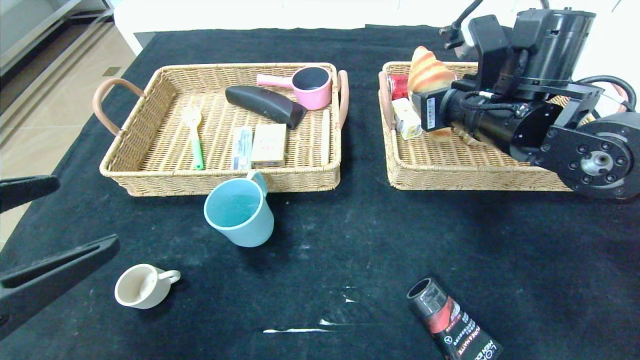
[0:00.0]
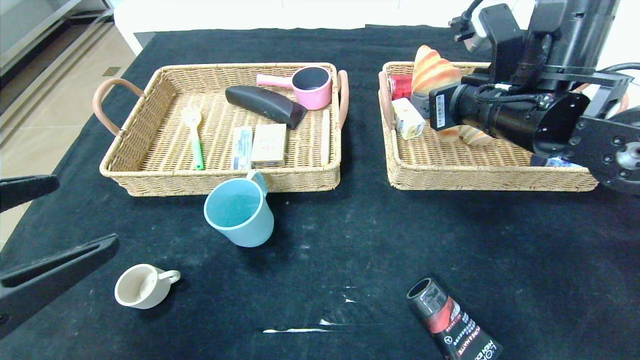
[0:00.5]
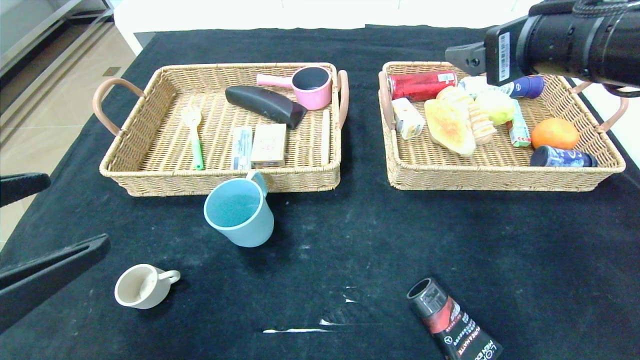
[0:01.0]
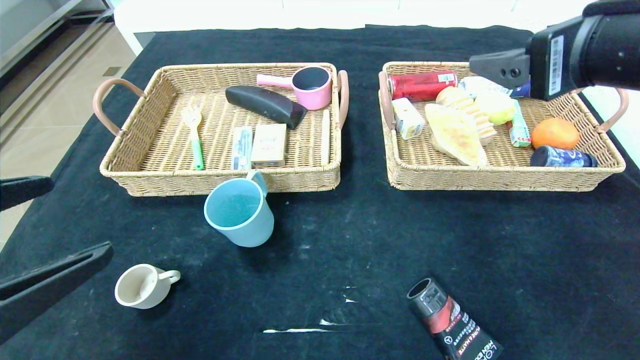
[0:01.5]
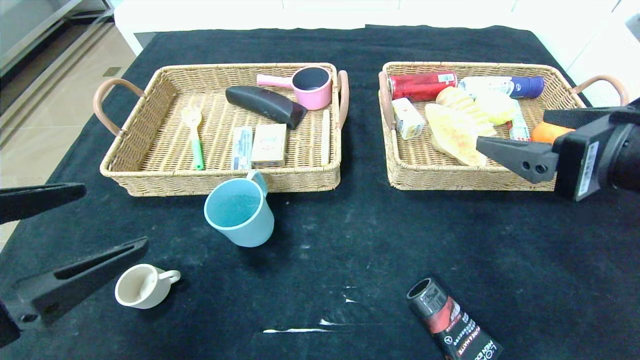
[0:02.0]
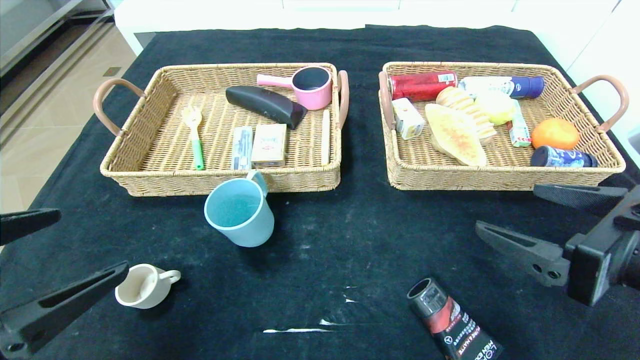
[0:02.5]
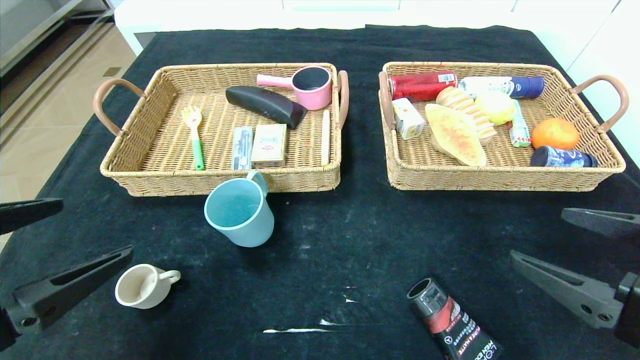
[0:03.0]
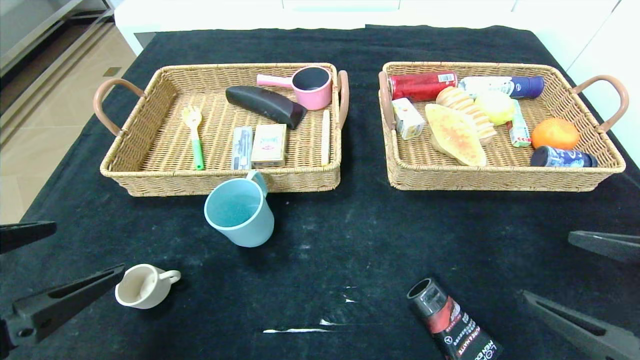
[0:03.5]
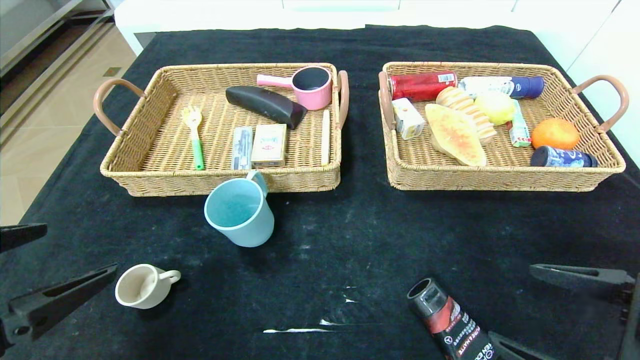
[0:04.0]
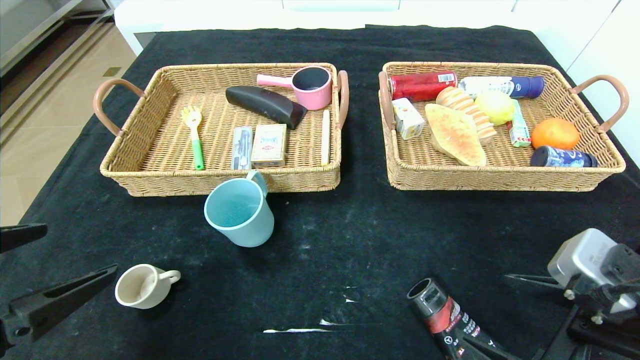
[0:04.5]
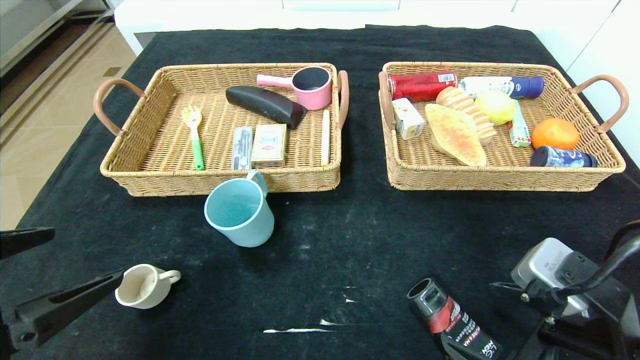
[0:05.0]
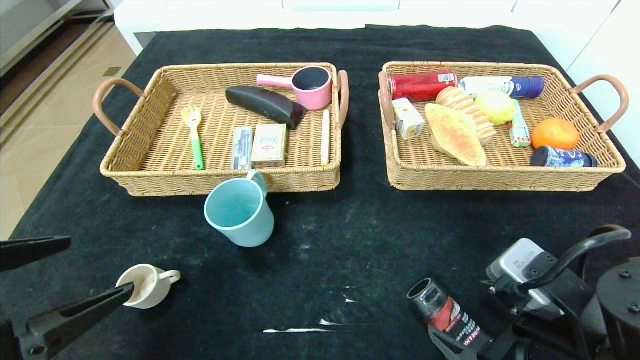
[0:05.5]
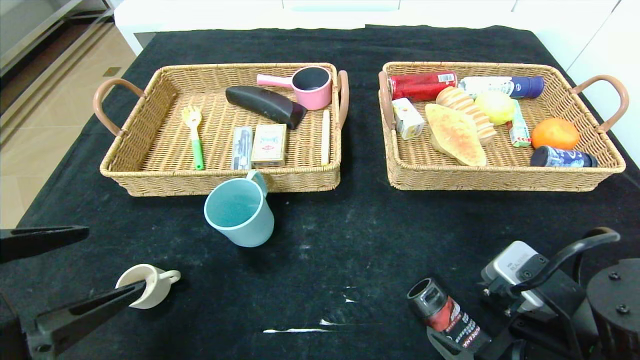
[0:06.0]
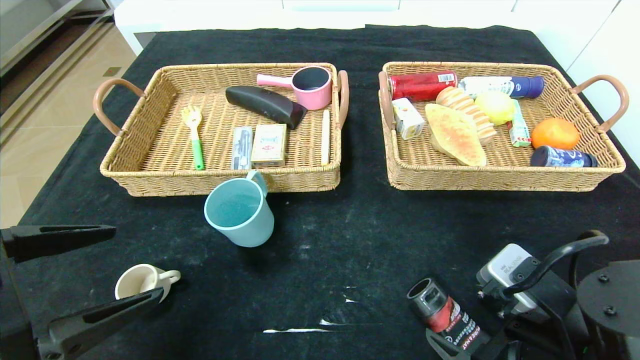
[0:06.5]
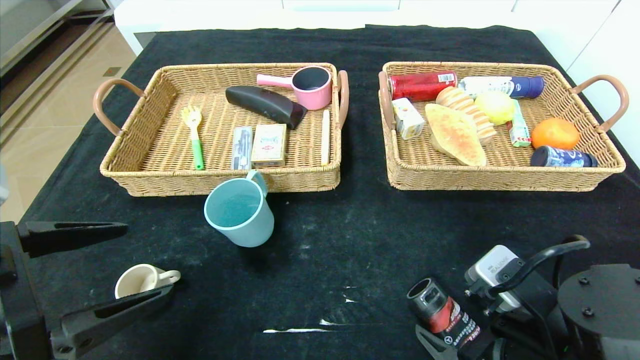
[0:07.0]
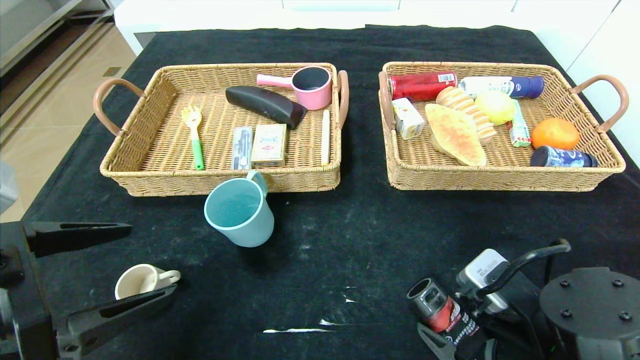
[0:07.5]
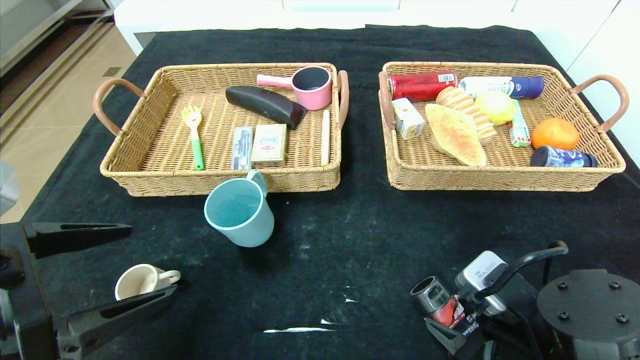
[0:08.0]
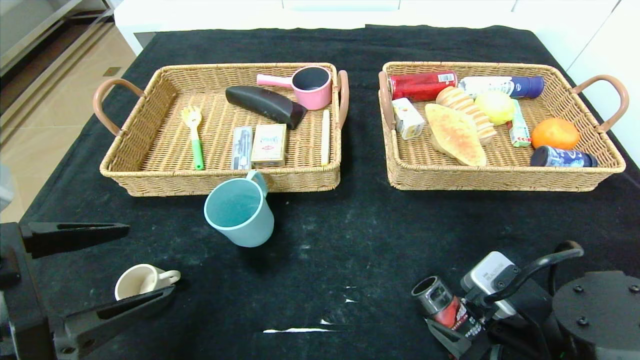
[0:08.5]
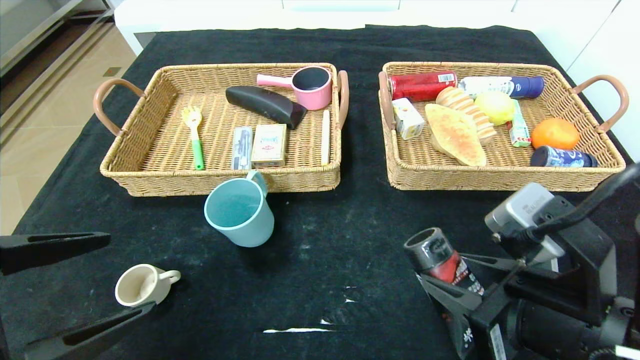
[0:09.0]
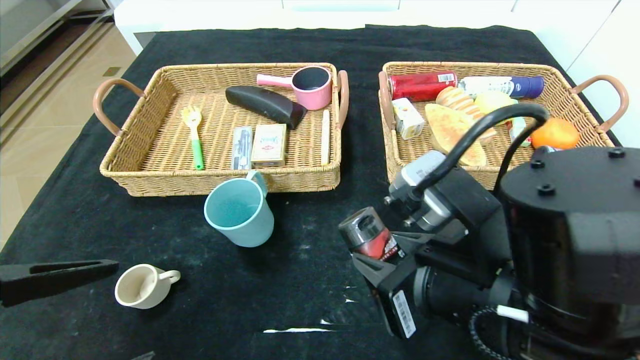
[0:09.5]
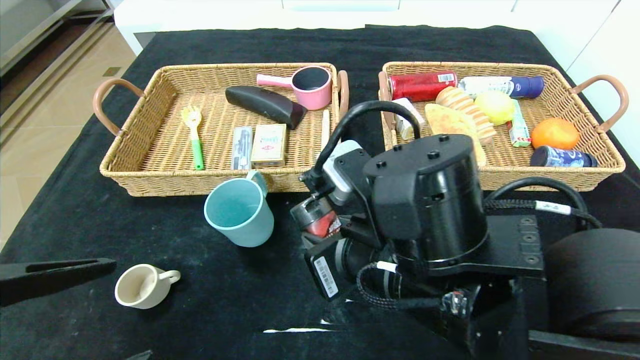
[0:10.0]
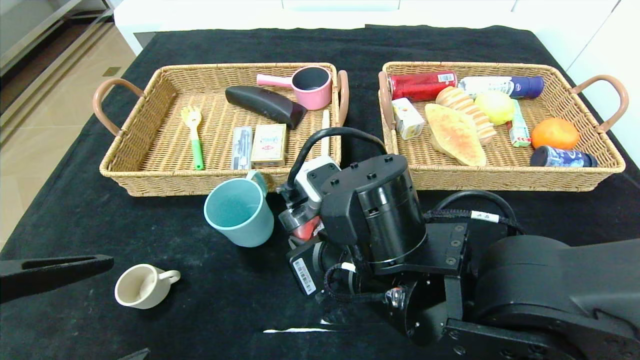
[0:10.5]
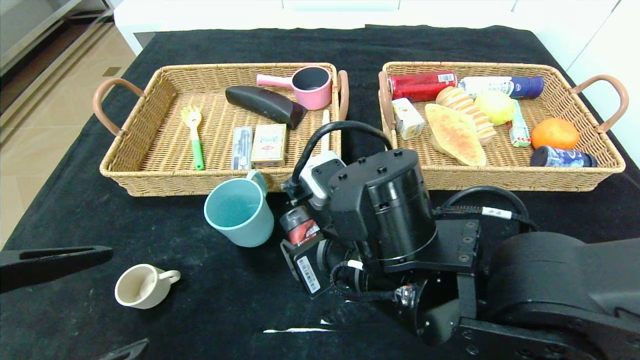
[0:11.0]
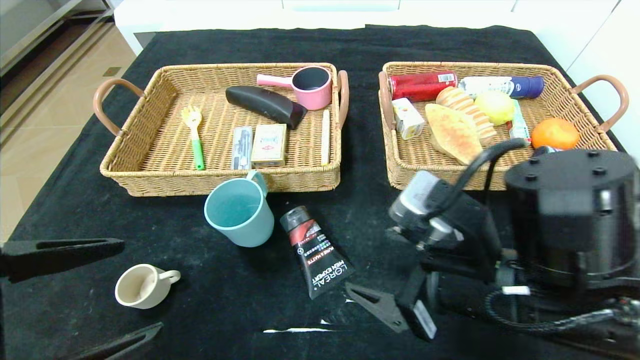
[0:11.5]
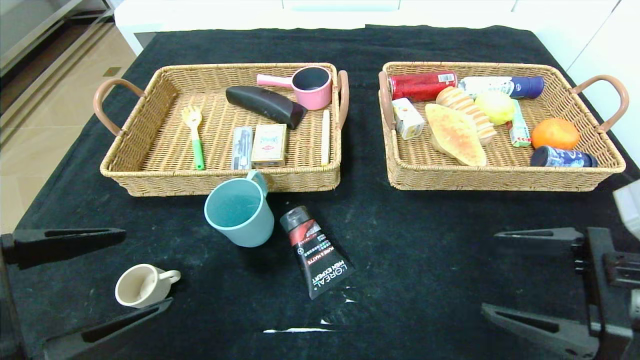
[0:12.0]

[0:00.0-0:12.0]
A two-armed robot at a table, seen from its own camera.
Step, 0:01.5 to 0:10.5: Place the soft cleanser in the center of the table.
0:00.0 to 0:02.0: The right gripper heads backward, covering roughly 15 cm, and opens.
0:02.0 to 0:04.0: The right gripper heads downward and backward, covering approximately 10 cm.
0:04.0 to 0:06.0: The right gripper shifts by about 10 cm.
0:06.0 to 0:08.0: The right gripper closes.
0:08.0 to 0:10.0: The right gripper heads to the left and upward, covering roughly 15 cm.
0:10.0 to 0:12.0: The right gripper travels to the right by about 25 cm, and opens up.

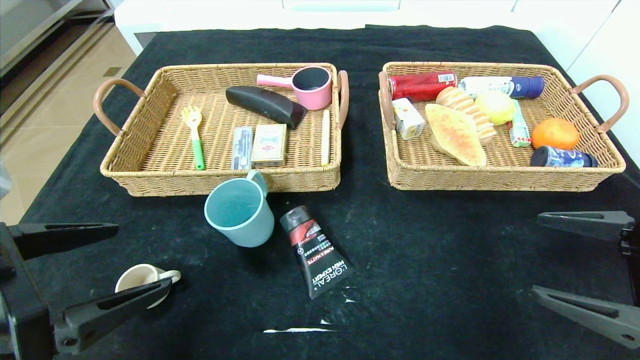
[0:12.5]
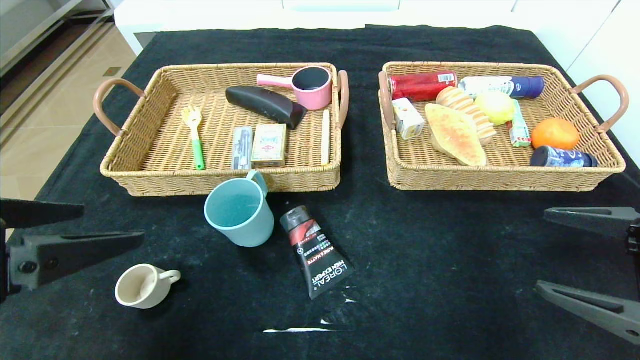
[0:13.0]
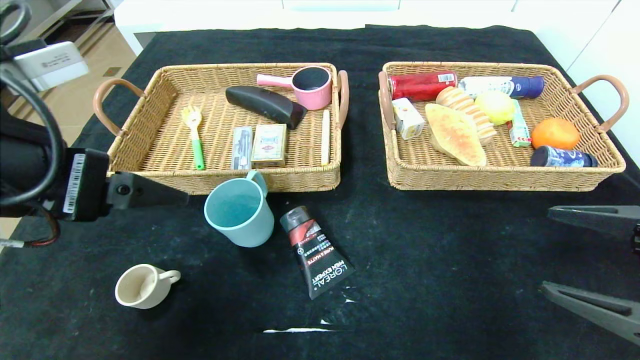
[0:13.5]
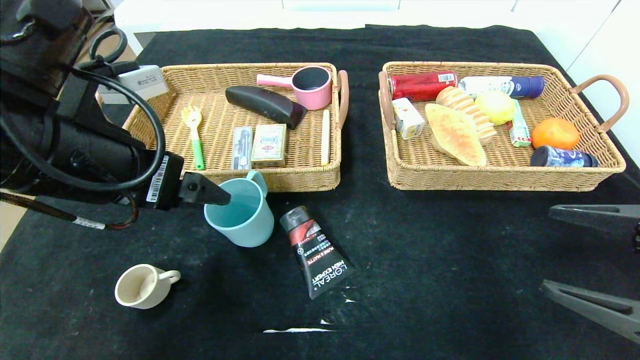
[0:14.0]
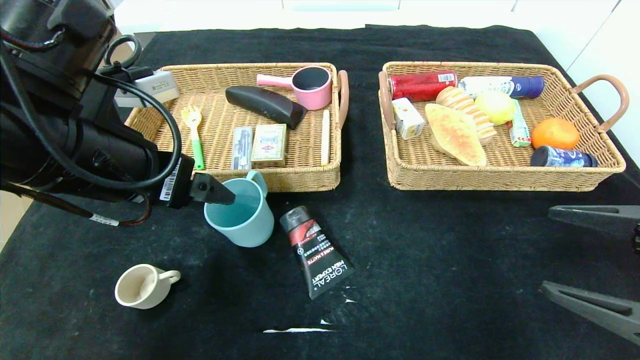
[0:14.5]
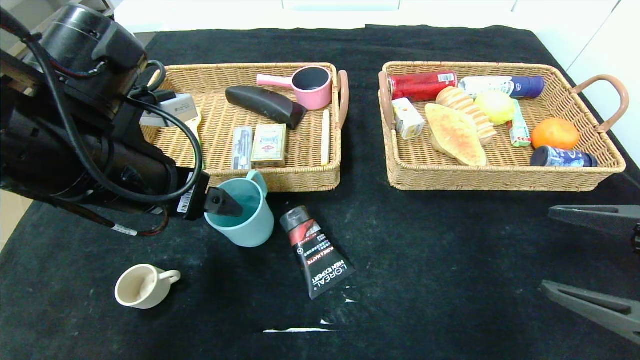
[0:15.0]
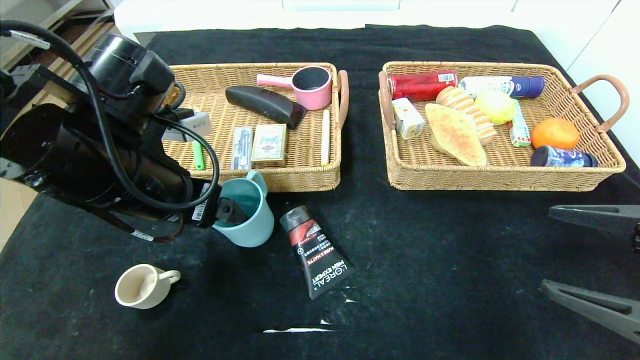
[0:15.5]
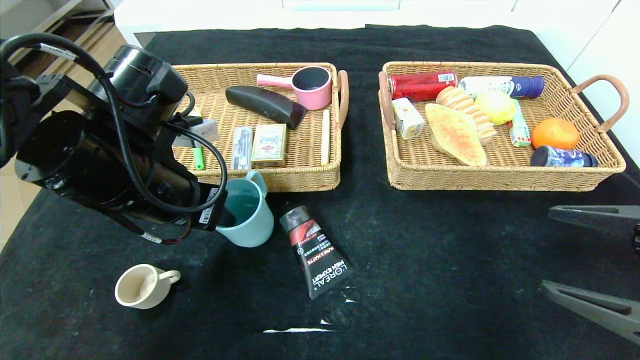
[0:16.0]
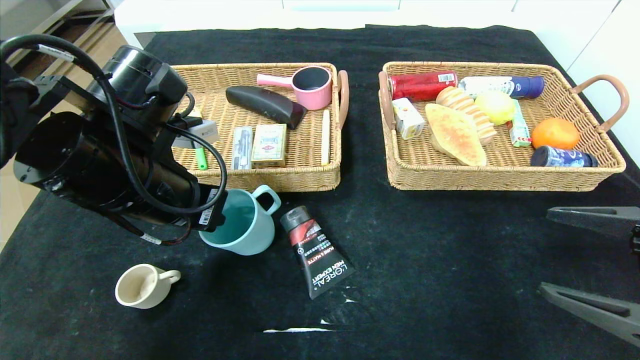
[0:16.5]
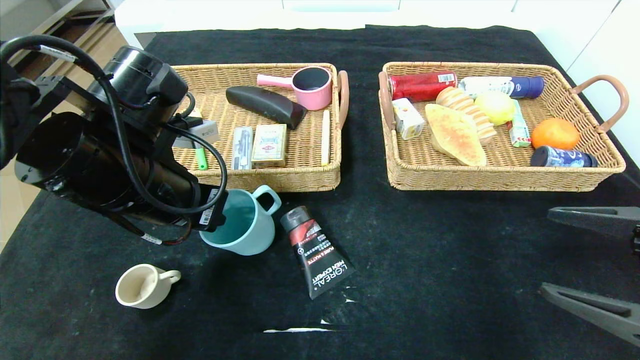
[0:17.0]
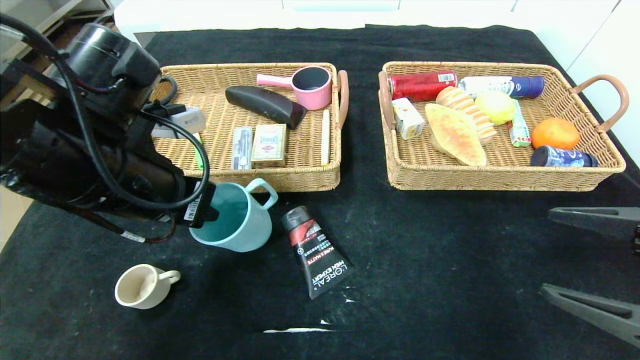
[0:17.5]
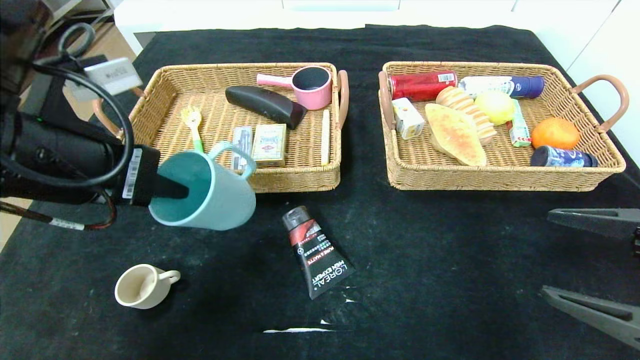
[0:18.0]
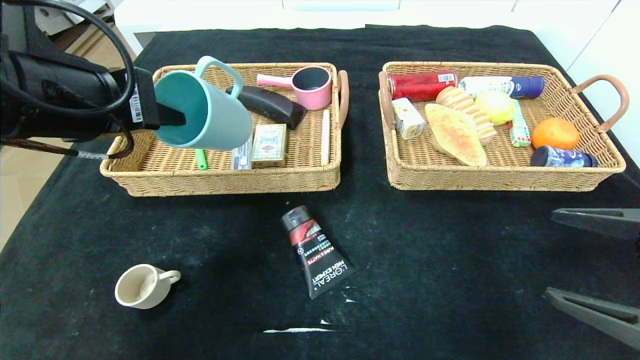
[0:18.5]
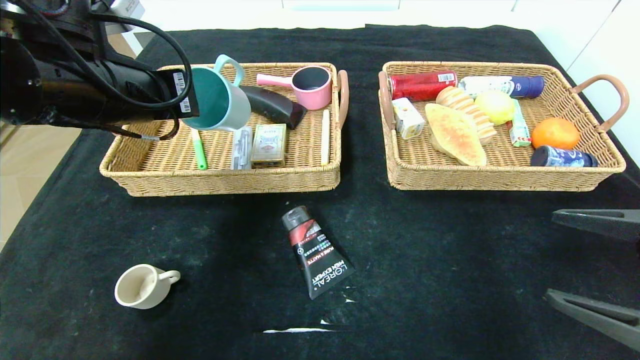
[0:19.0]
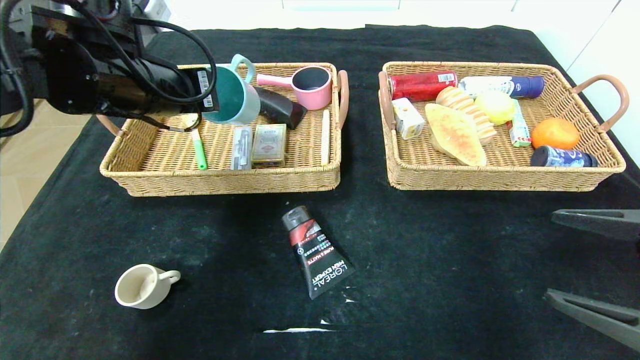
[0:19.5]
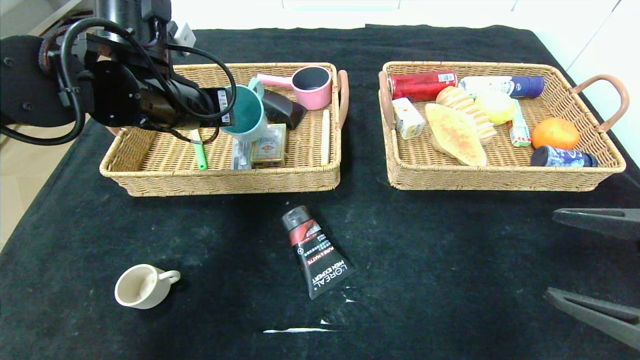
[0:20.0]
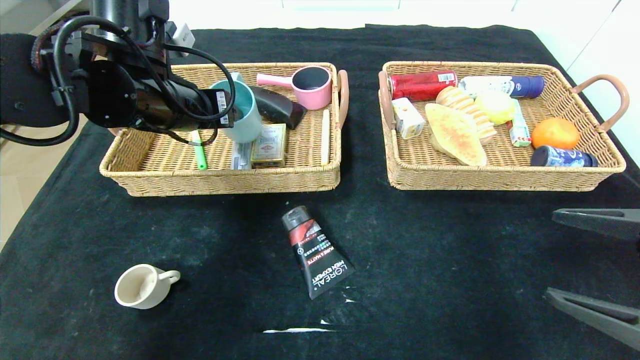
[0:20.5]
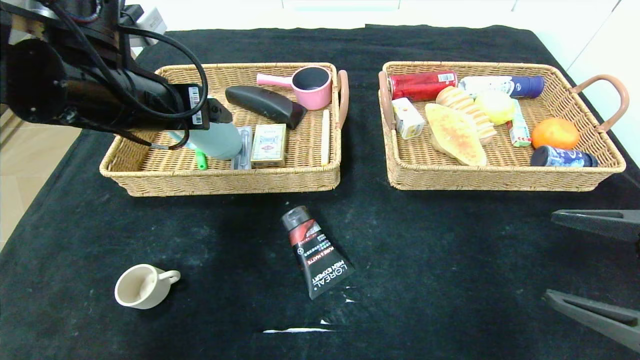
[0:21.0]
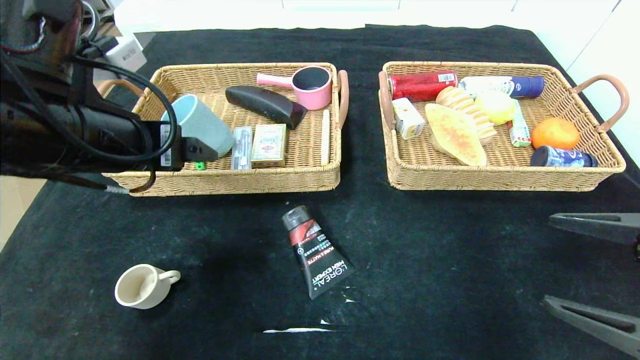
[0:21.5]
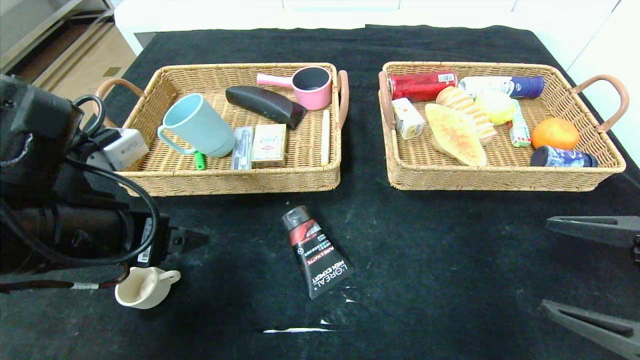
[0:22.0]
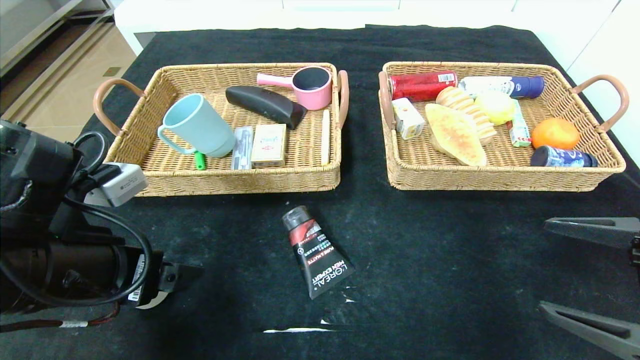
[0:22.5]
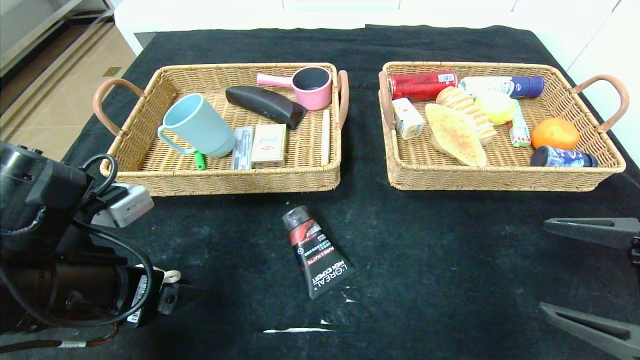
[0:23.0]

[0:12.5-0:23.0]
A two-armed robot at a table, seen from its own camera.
Step, 0:12.5 to 0:20.5: Grasp the blue cup and put it in the left basket.
0:12.5 to 0:14.5: The left gripper shifts roughly 15 cm forward, upward and to the right.
0:14.5 to 0:16.5: The left gripper ends up about 5 cm from where it was, and closes up.
0:16.5 to 0:19.0: The left gripper goes roughly 5 cm upward.
0:19.0 to 0:21.0: The left gripper opens up.
0:21.0 to 0:23.0: The left gripper goes roughly 15 cm downward and backward.
